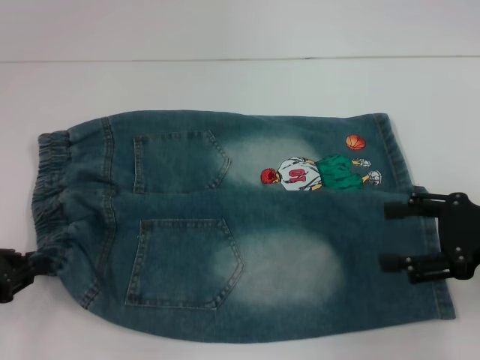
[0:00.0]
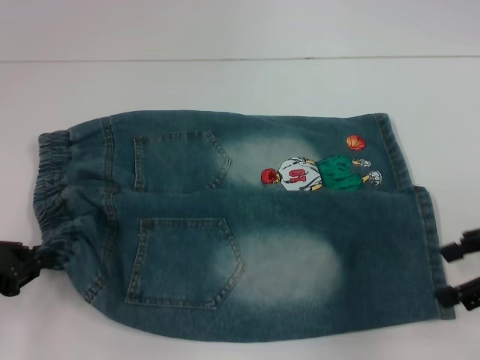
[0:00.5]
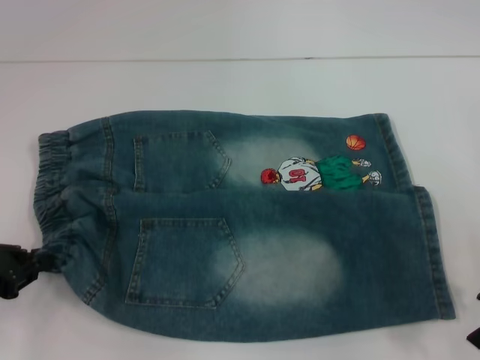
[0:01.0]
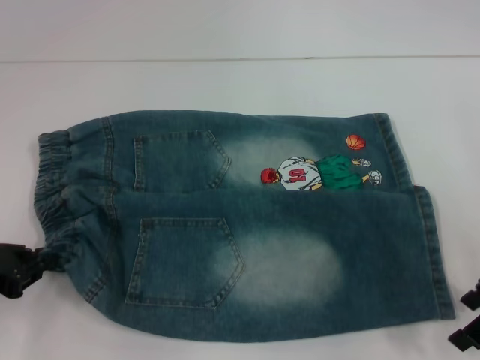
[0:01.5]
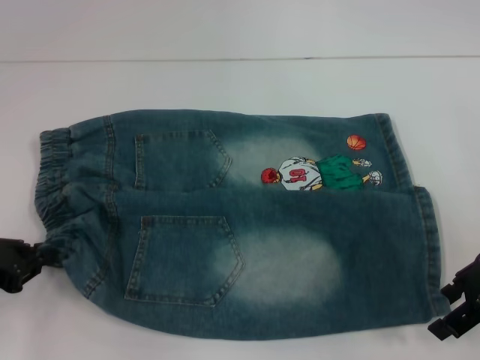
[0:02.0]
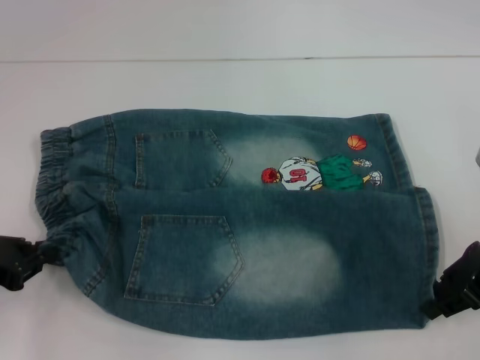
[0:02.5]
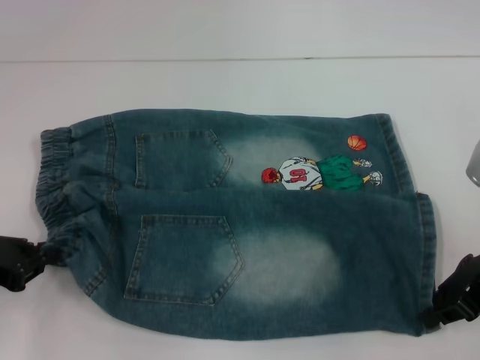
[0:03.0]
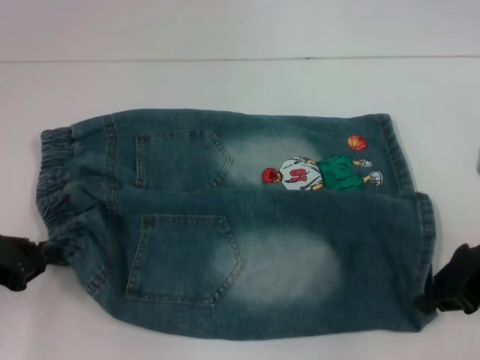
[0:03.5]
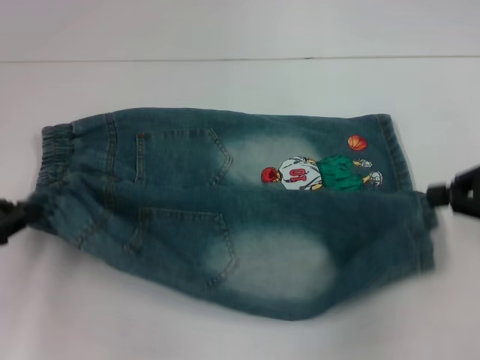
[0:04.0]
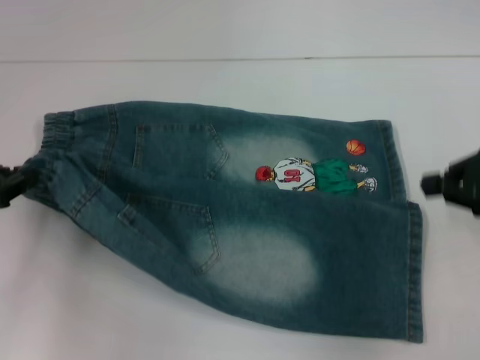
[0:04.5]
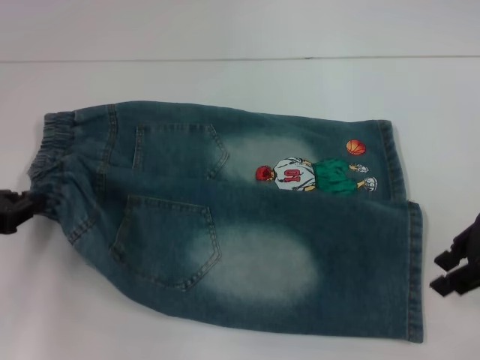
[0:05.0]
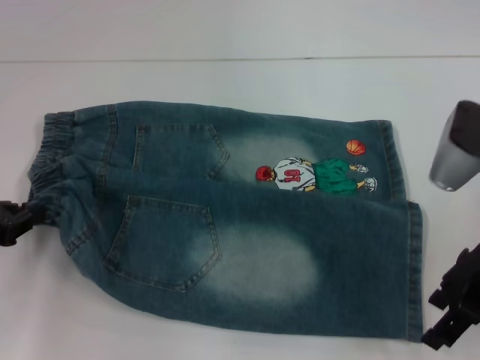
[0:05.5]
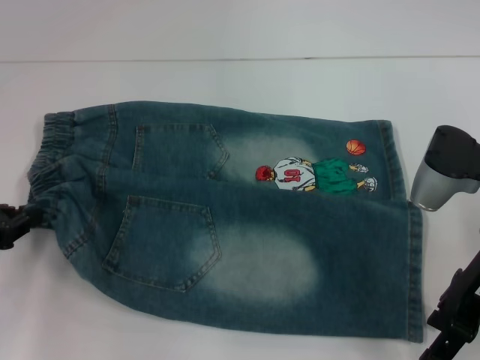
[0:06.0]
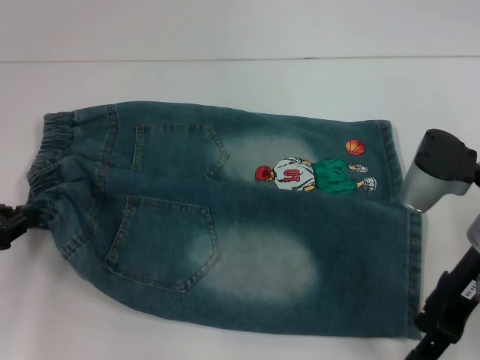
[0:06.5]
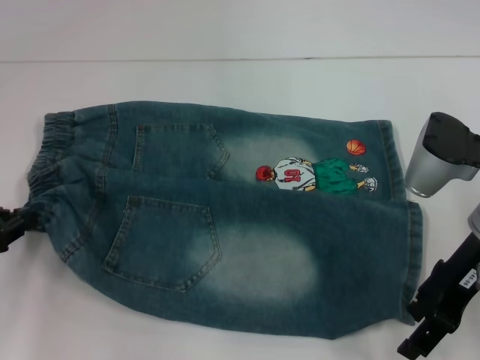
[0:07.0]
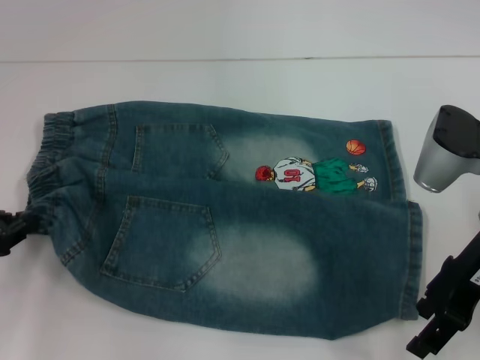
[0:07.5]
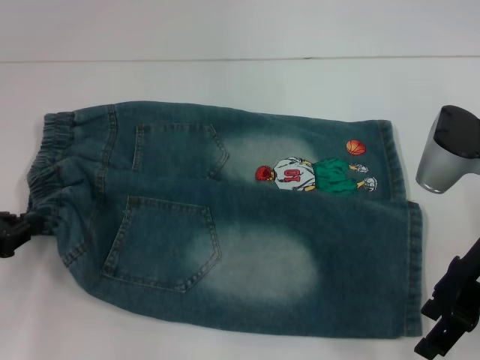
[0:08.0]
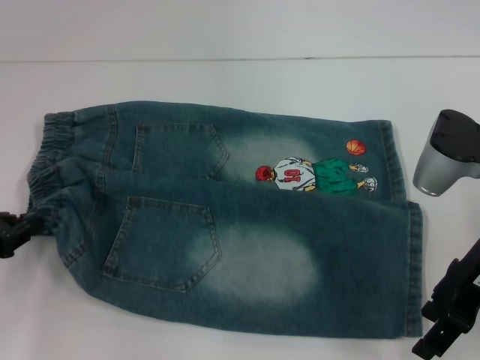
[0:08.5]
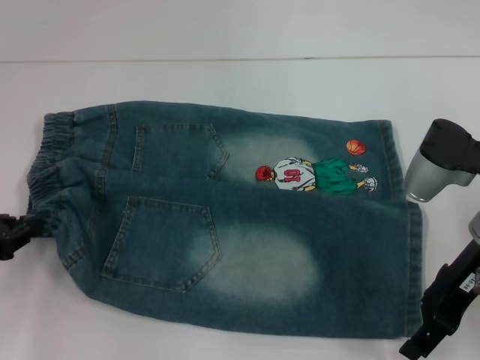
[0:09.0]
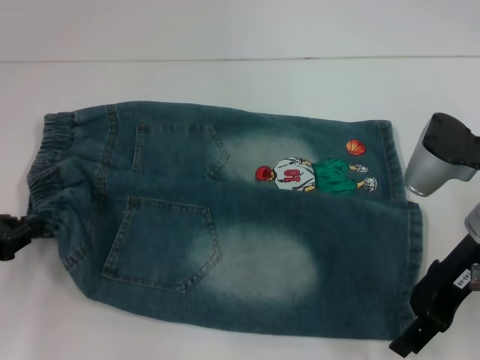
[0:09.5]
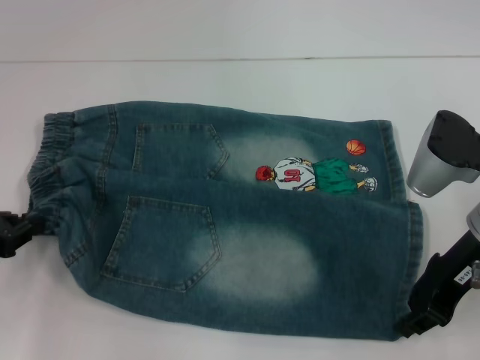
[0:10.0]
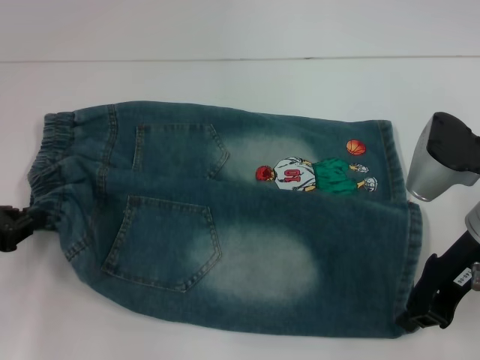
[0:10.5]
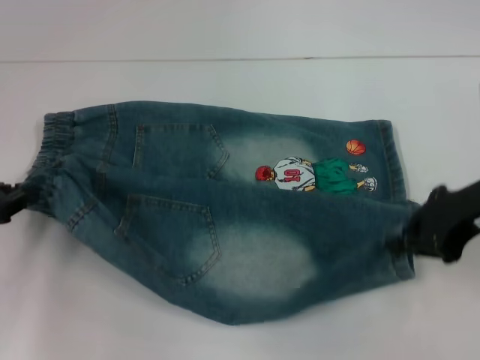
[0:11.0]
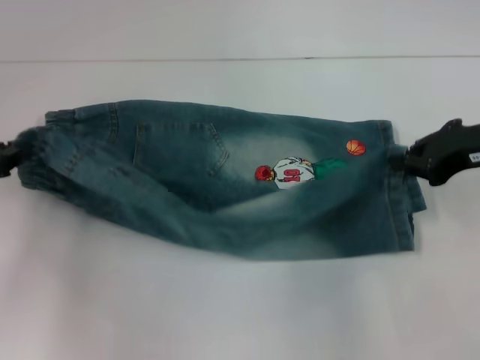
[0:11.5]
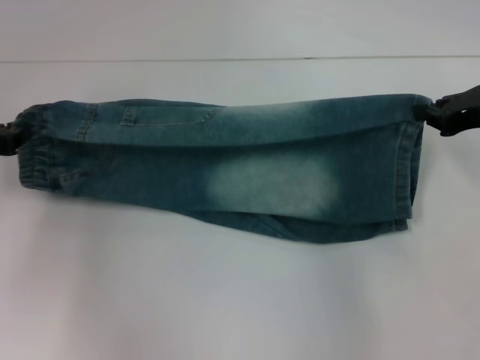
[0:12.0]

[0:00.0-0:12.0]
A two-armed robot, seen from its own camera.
Step, 0:00.0 to 0:02.0: Grab the lower right pant leg with your right hand.
0:02.0 to 0:04.0: The right gripper shifts by roughly 5 cm, and closes its fingers.
0:04.0 to 0:06.0: The right gripper travels to the left by approximately 10 cm, and opens up.
0:06.0 to 0:10.0: The grippers stay close to where they were, moving slightly.
0:10.0 to 0:12.0: The left gripper moves forward, approximately 5 cm. The right gripper moves to the right and forward, roughly 10 cm, and closes up.

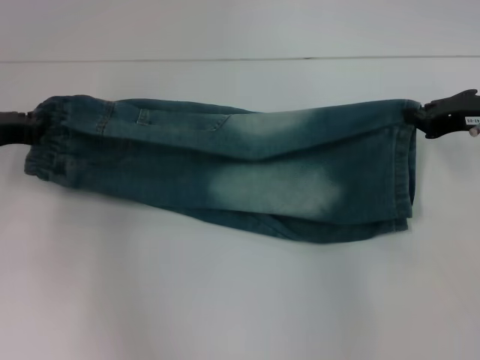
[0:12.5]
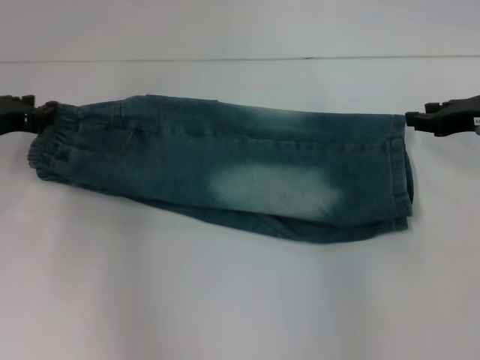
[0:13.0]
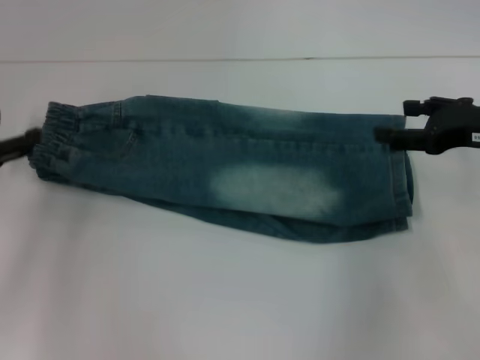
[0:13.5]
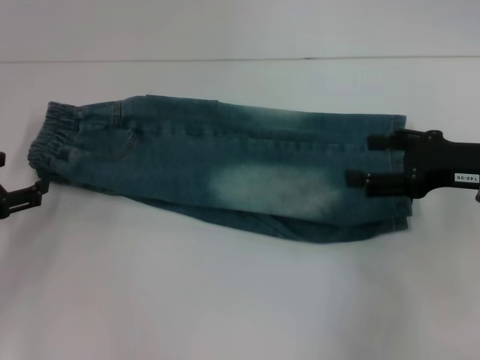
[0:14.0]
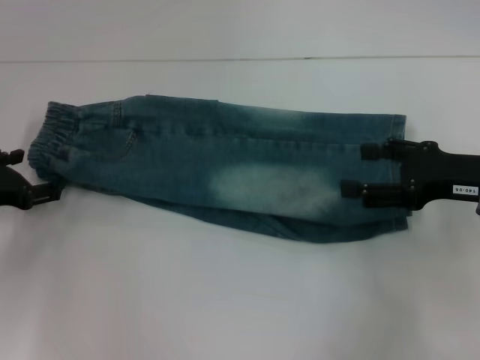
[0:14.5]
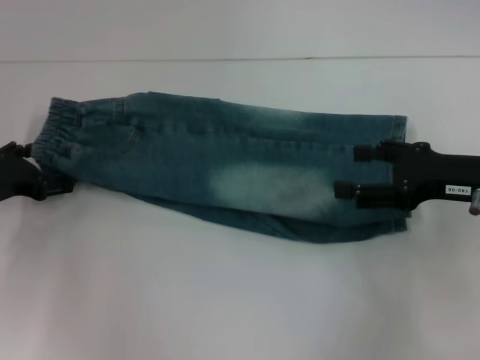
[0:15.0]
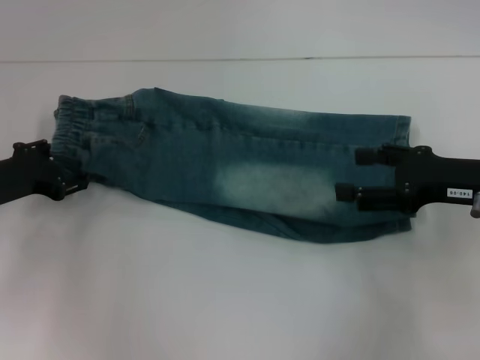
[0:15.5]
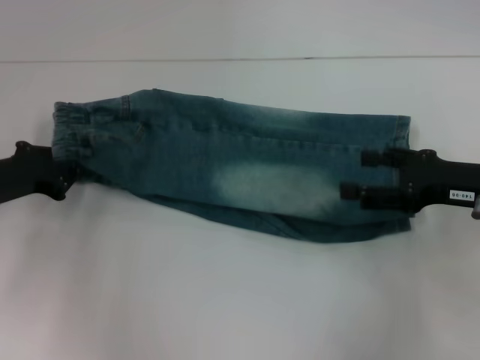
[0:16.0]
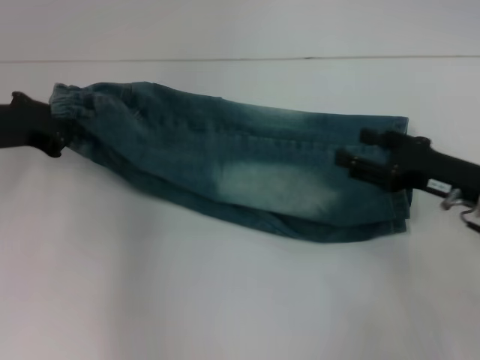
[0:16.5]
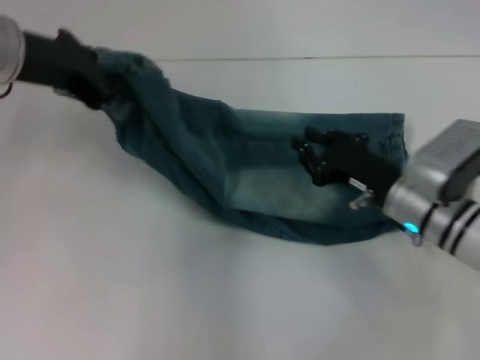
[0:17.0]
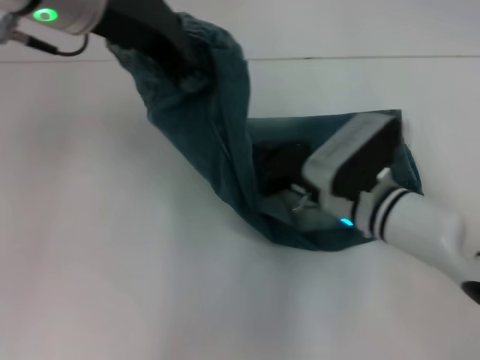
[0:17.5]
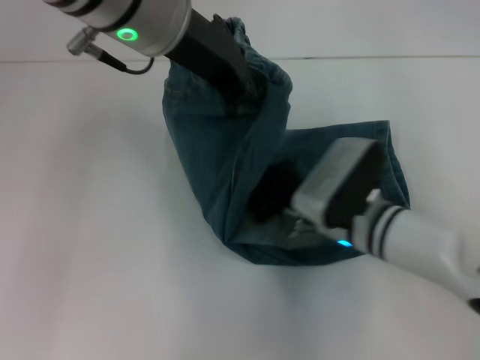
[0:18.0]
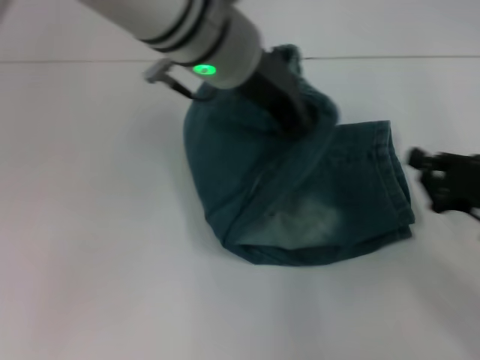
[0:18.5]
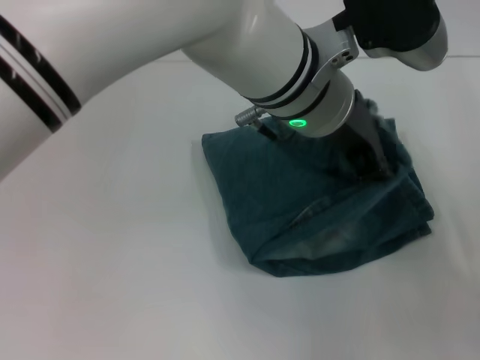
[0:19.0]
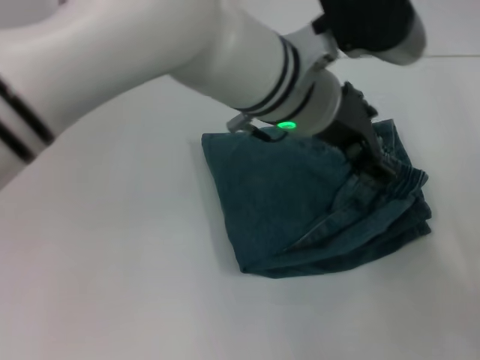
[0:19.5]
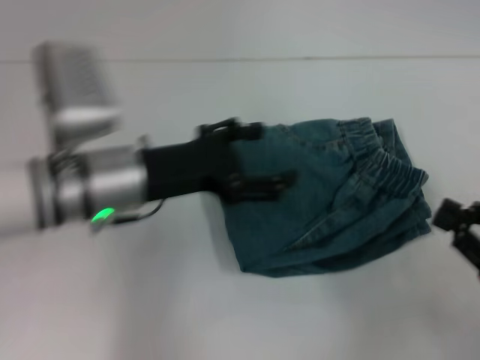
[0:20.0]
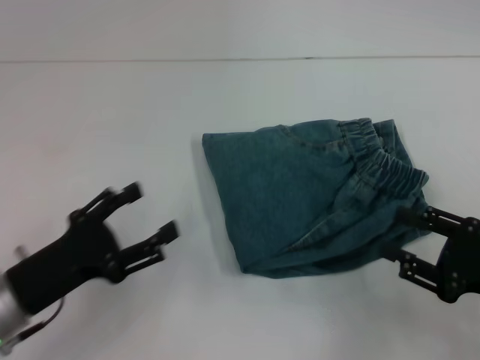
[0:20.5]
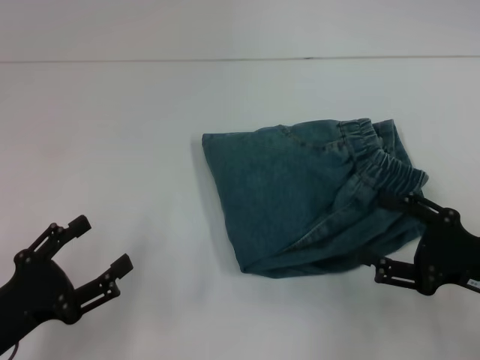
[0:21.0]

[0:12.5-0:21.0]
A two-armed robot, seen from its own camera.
Step, 0:13.5 to 0:15.5: Hold the waistband with your left hand.
Step, 0:16.0 to 0:18.0: Press the middle of the pants with your right hand.
Step, 0:18.5 to 0:19.0: Fold to the right with your left hand.
0:12.5 to 0:14.5: The left gripper moves downward, approximately 5 cm, and opens up; the right gripper heads backward, covering about 5 cm, and opens its fingers.
0:14.5 to 0:16.5: The right gripper is displaced downward by approximately 5 cm. The left gripper goes some 10 cm upward, and closes its fingers.
0:16.5 to 0:19.0: The right gripper shifts some 15 cm to the right and backward, and closes its fingers. Meanwhile the left gripper shifts some 30 cm to the right.
0:19.0 to 0:21.0: The left gripper heads to the left, downward and backward, covering about 40 cm, and opens. The right gripper is displaced to the left by about 10 cm, and opens its fingers.

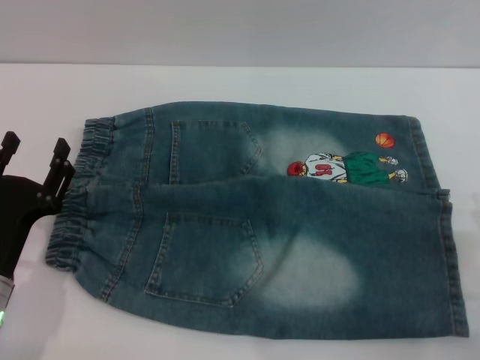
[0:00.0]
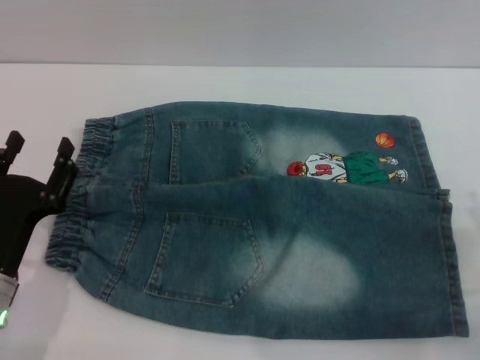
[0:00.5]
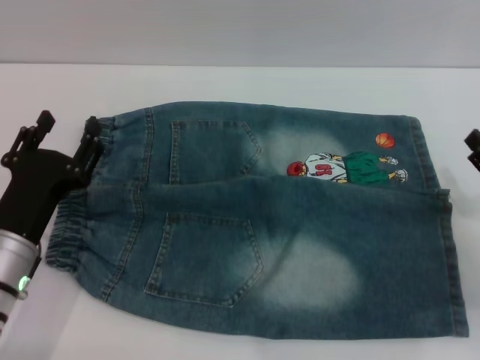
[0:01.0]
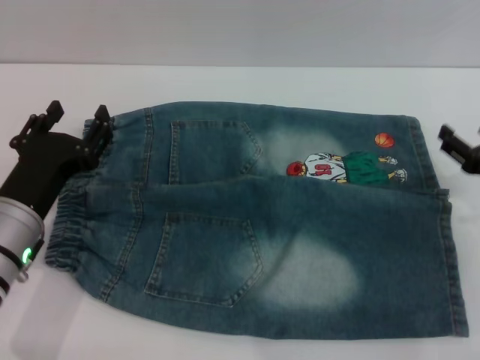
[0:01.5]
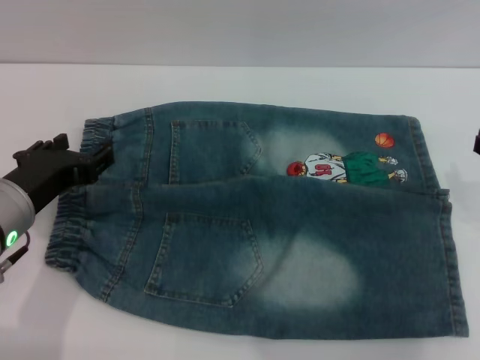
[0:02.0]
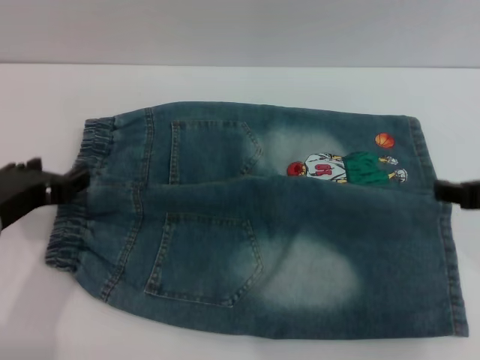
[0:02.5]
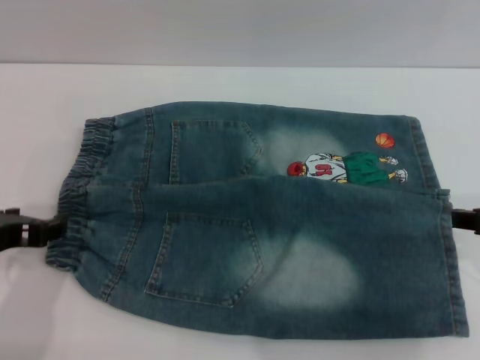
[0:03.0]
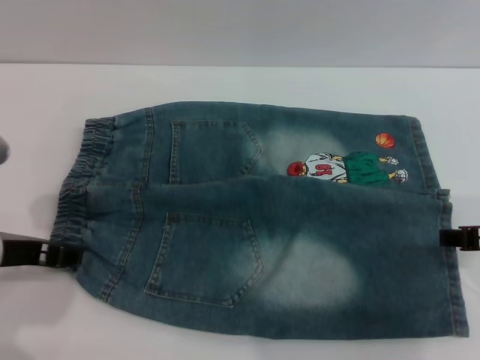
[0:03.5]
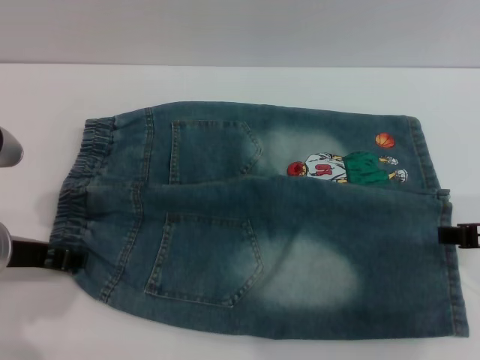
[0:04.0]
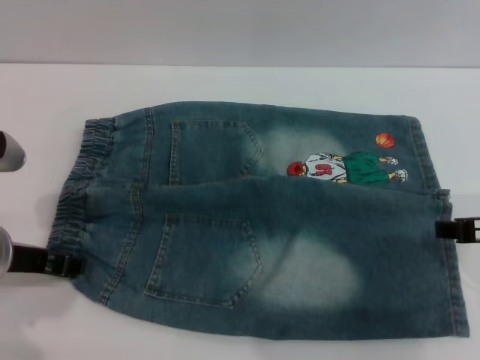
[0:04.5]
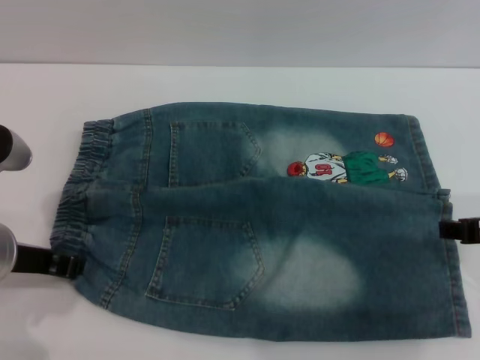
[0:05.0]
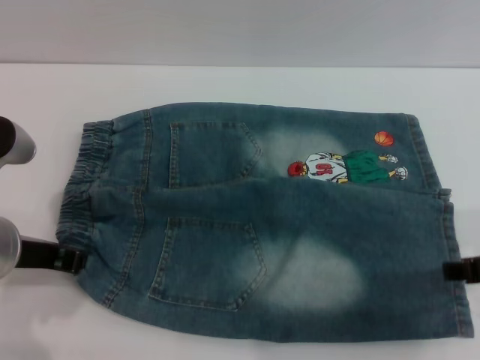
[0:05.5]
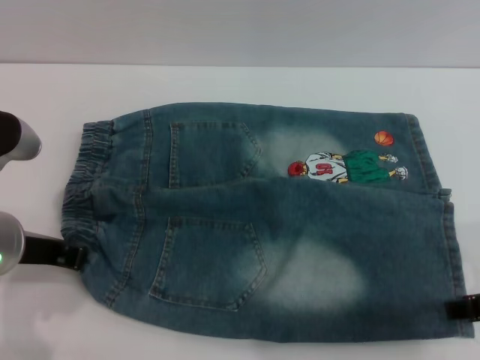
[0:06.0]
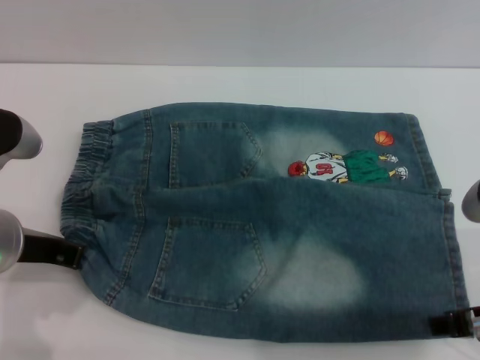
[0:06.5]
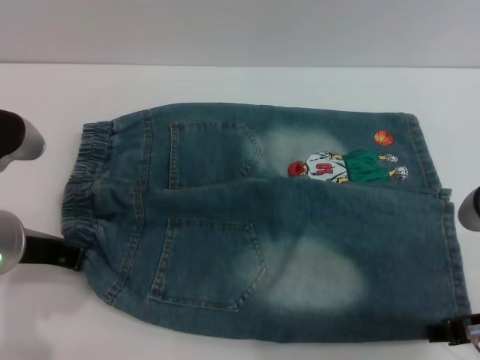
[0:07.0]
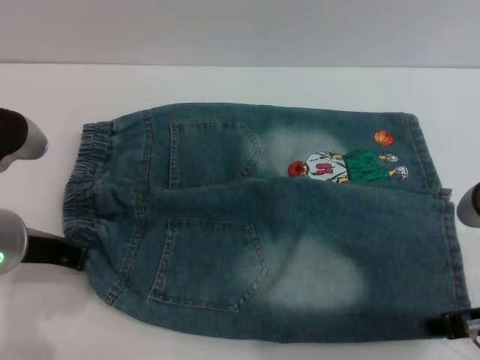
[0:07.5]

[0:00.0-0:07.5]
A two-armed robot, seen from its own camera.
0:00.0 to 0:02.0: The left gripper is displaced upward and forward by some 10 cm. The right gripper goes roughly 15 cm upward, forward and to the left.
0:04.0 to 0:07.5: The grippers move only a little.
